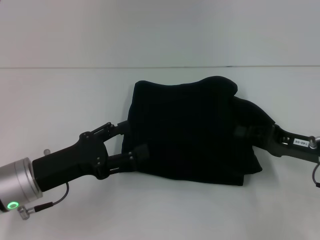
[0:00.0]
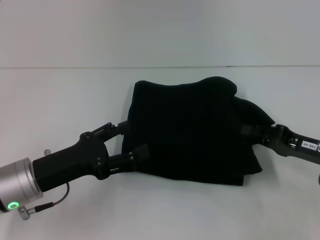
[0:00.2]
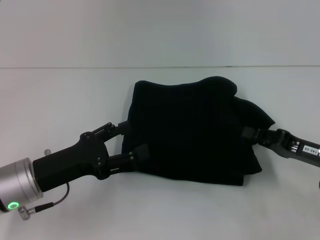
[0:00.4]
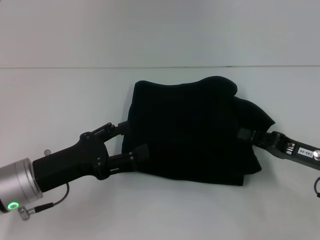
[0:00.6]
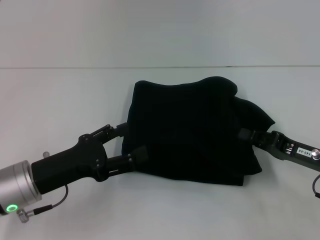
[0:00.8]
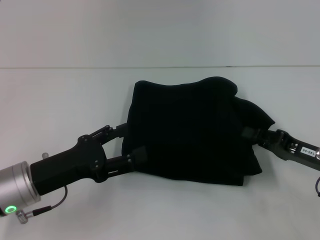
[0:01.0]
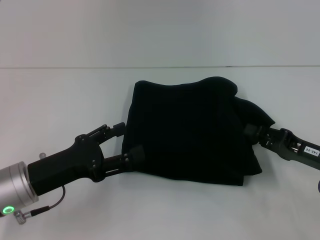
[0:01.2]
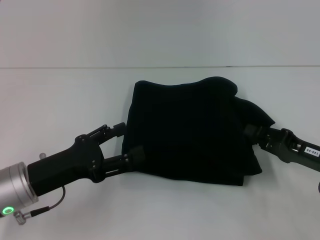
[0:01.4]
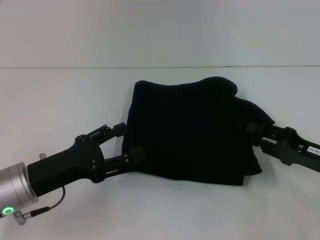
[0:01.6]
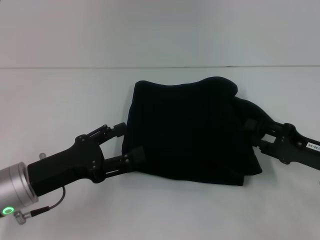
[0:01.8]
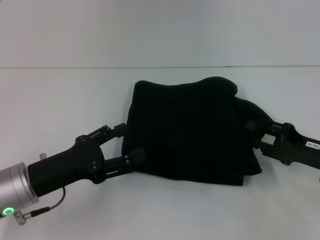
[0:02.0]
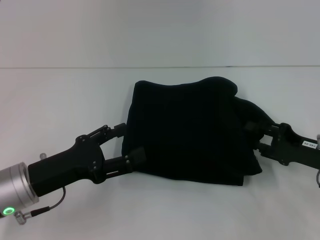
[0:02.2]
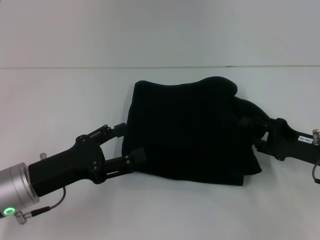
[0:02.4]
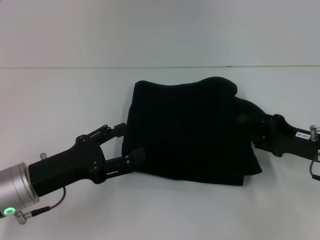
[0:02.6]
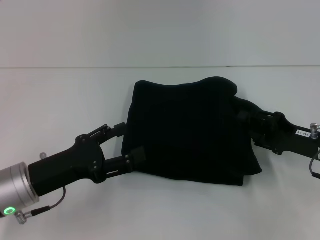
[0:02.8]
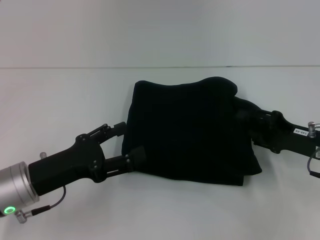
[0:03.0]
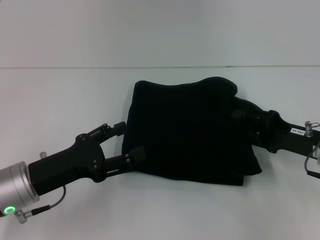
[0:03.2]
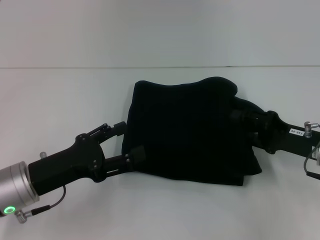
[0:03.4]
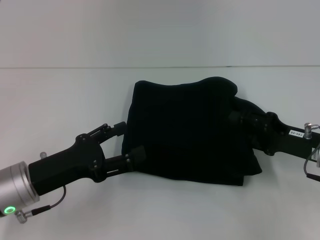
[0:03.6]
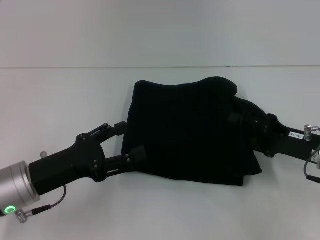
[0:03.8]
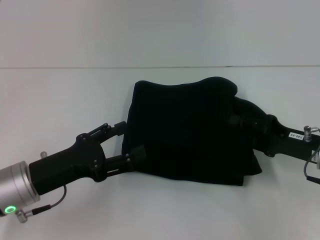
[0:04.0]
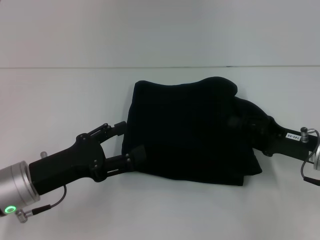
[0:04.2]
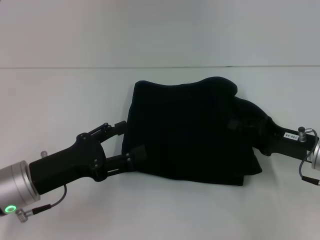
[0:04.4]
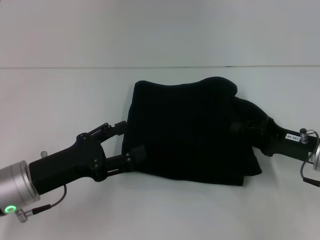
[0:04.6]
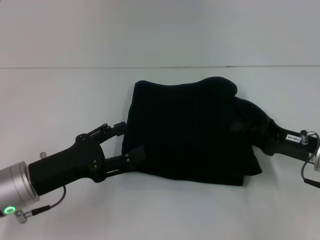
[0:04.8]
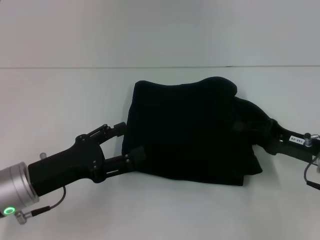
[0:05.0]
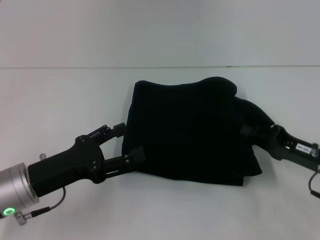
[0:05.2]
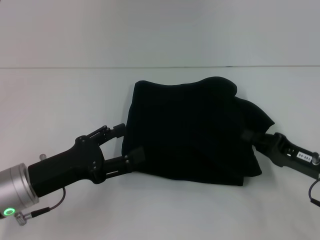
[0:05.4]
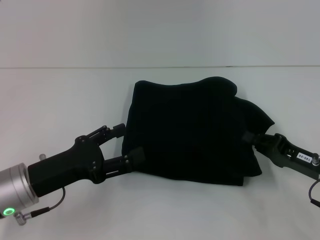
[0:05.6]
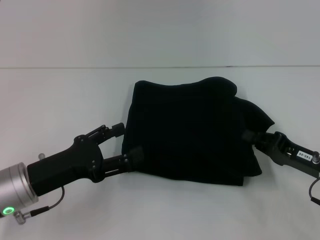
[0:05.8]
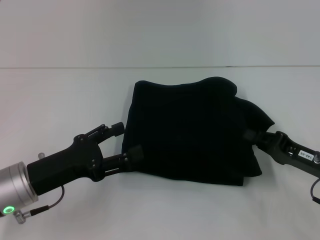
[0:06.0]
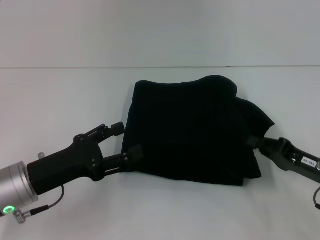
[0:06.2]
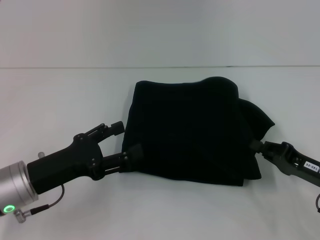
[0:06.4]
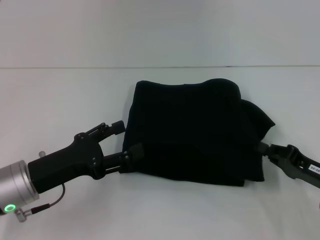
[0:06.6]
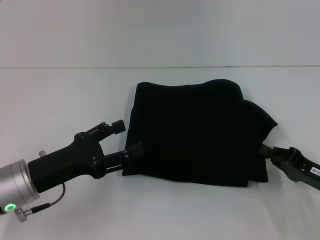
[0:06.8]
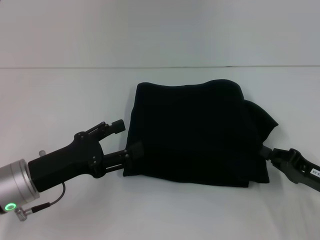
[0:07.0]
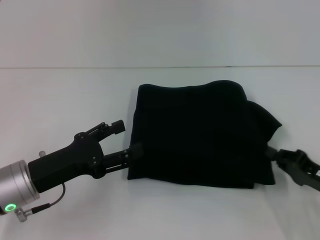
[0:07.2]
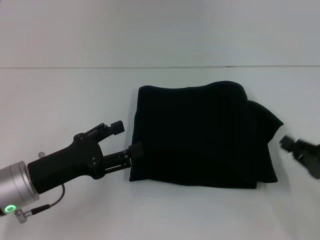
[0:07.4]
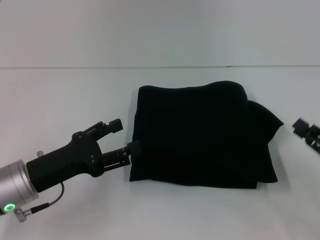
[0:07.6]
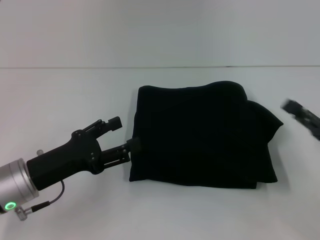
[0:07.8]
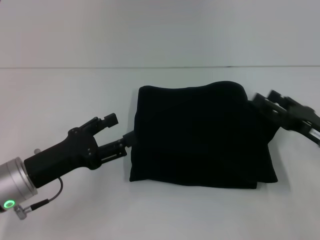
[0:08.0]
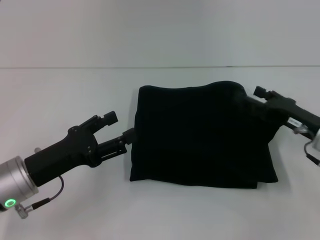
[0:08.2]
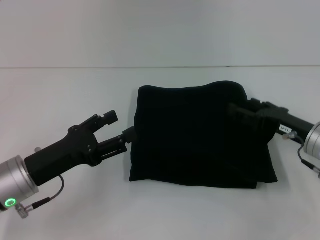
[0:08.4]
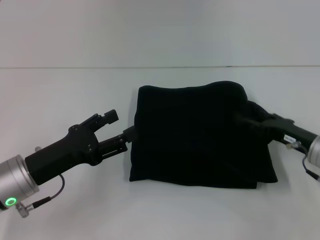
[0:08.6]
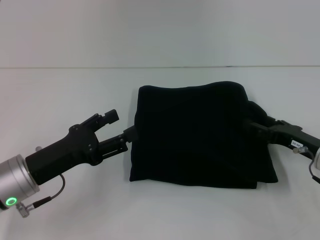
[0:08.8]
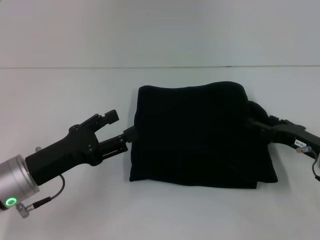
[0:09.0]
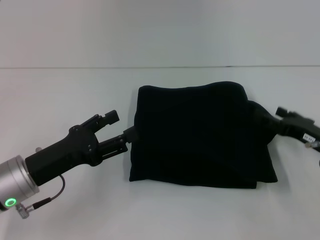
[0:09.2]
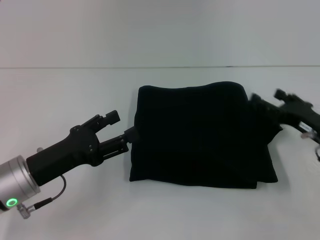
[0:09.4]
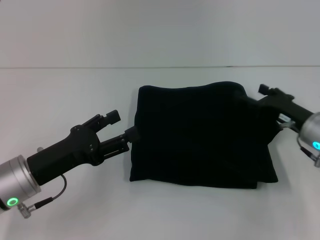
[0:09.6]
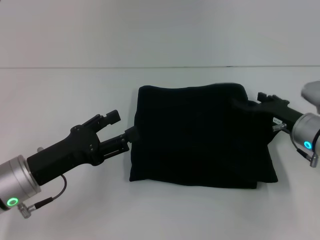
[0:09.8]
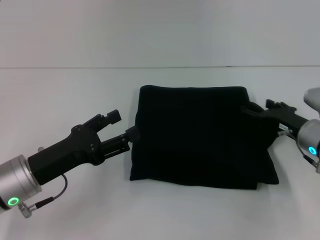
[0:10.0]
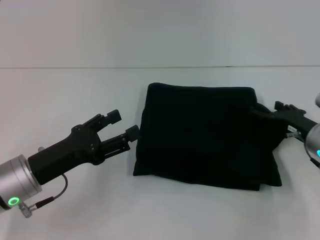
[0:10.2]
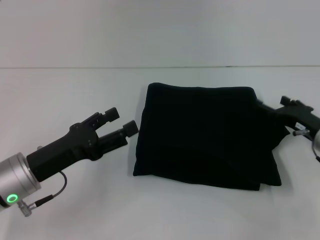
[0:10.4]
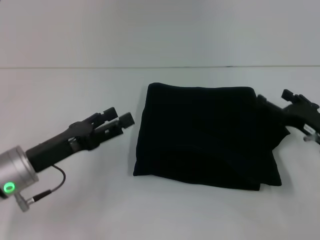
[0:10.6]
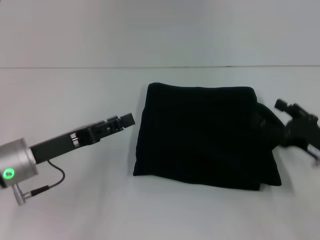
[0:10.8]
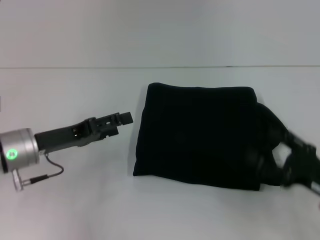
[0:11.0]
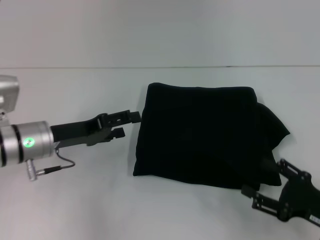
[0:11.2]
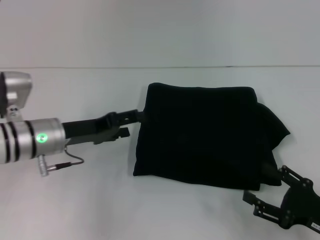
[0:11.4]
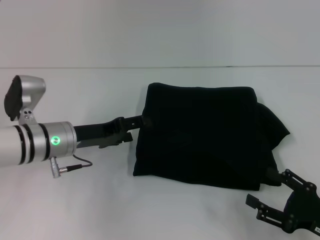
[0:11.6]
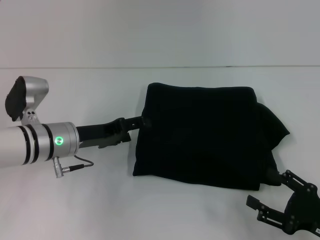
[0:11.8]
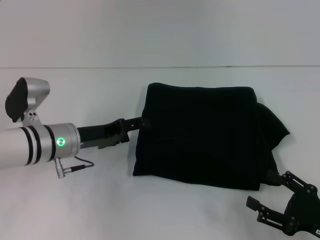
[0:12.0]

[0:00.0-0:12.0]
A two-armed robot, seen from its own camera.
0.0 to 4.4 s: The grippers make only small movements.
4.4 to 6.0 s: The right gripper closes.
6.0 to 7.6 s: The right gripper shifts by about 5 cm.
7.6 to 9.0 s: The right gripper shifts roughly 10 cm forward, and opens up.
9.0 to 10.4 s: The grippers make only small movements.
10.4 to 12.0 s: The left gripper heads forward, covering approximately 10 cm. Meanwhile the right gripper goes some 15 cm backward.

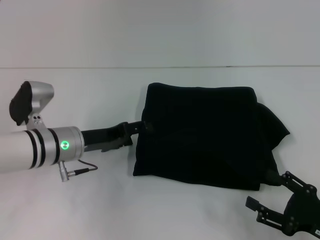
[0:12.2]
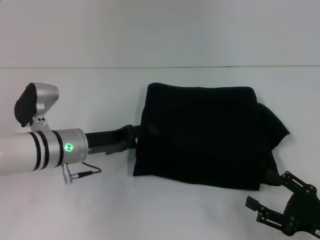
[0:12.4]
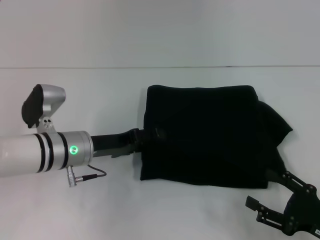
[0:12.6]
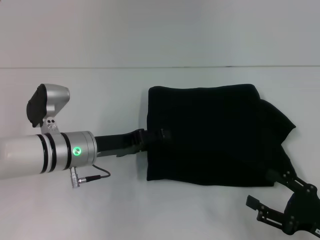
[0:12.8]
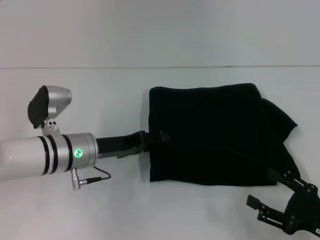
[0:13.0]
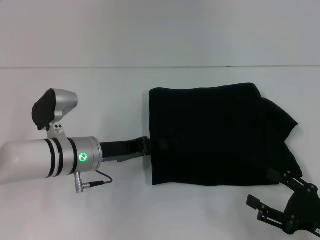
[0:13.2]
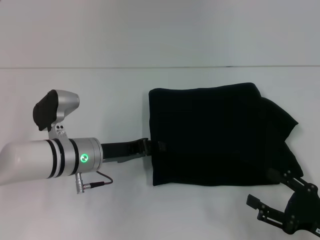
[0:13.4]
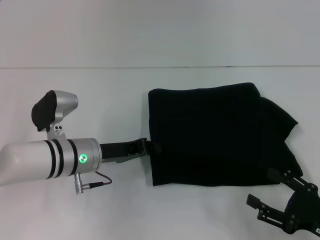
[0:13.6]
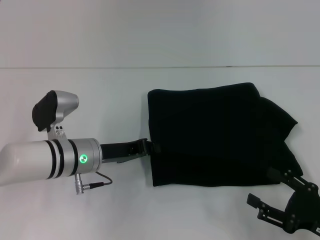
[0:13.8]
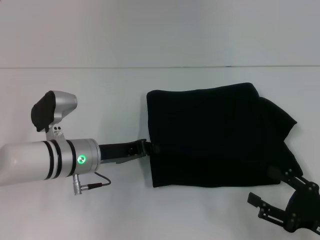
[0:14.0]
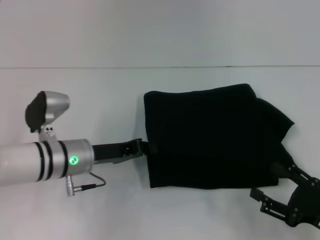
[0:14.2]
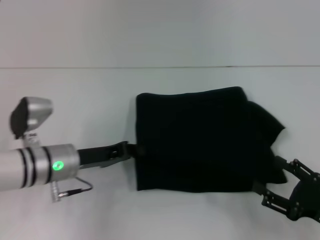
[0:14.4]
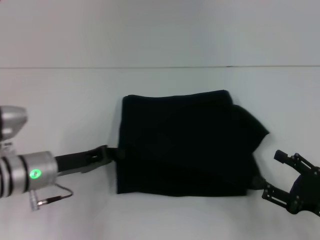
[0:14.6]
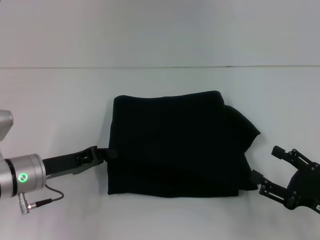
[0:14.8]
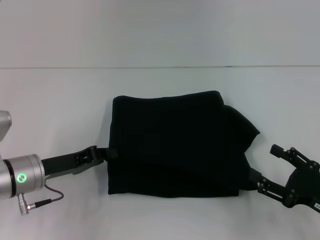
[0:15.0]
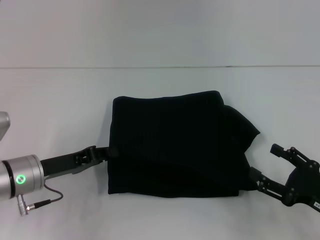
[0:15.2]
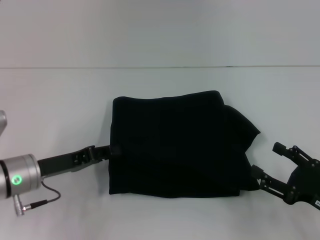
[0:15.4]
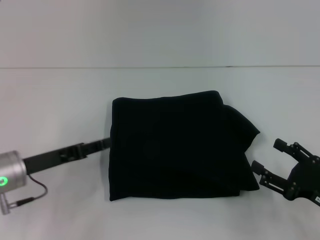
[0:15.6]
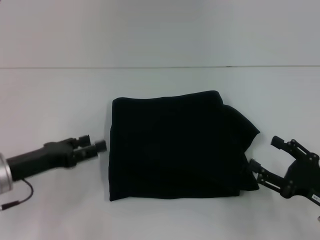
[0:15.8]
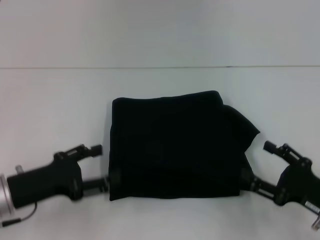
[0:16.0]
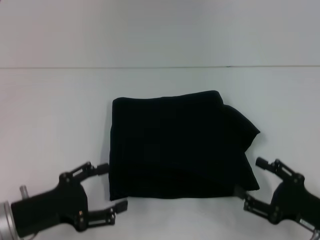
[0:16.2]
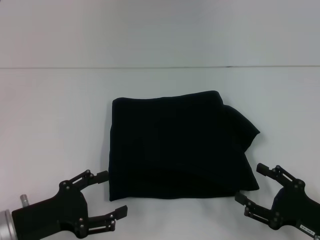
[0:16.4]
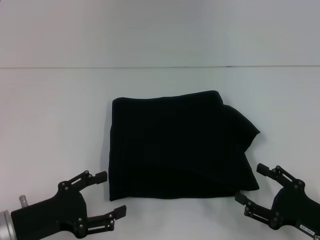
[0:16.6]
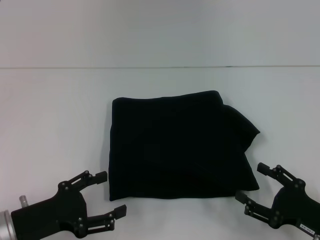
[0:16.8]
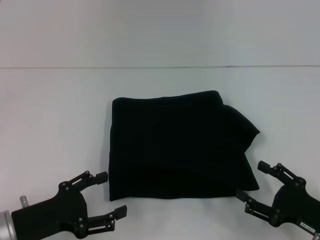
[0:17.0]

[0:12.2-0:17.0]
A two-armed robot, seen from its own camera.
12.2 to 13.8 s: The left gripper closes its fingers.
13.8 to 15.4 s: The left gripper is displaced to the left by roughly 10 cm.
15.4 to 17.0 s: The left gripper travels backward by some 10 cm, and opens its fingers.

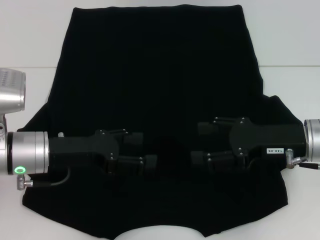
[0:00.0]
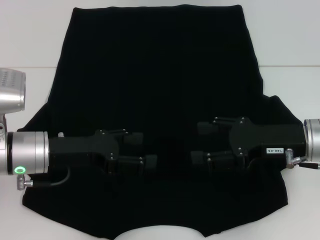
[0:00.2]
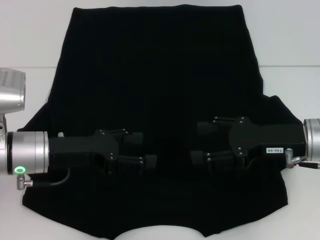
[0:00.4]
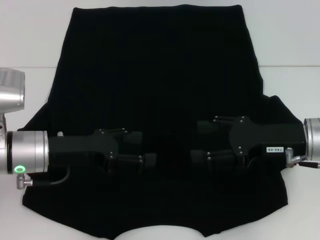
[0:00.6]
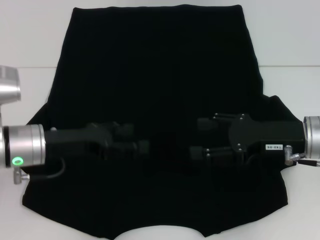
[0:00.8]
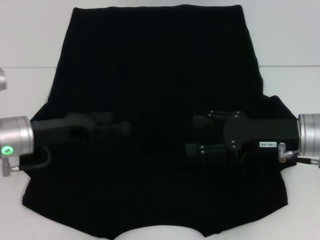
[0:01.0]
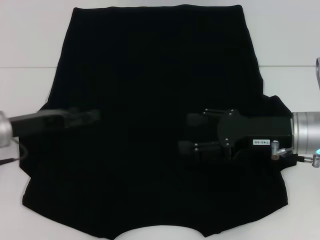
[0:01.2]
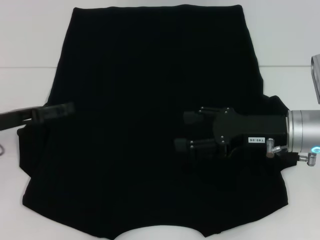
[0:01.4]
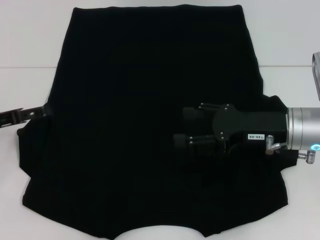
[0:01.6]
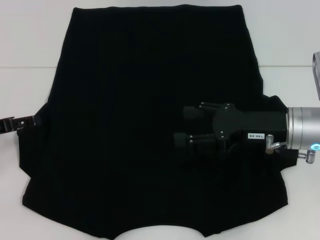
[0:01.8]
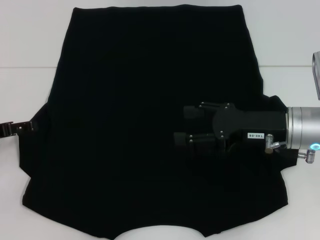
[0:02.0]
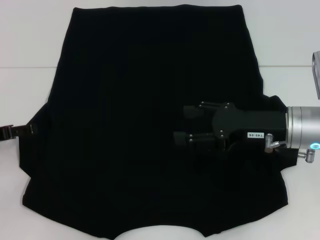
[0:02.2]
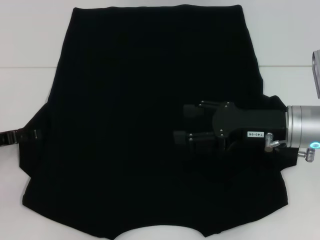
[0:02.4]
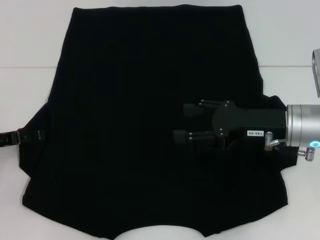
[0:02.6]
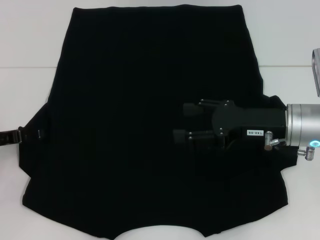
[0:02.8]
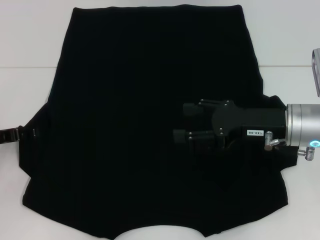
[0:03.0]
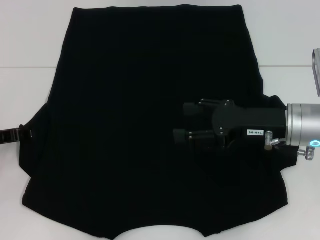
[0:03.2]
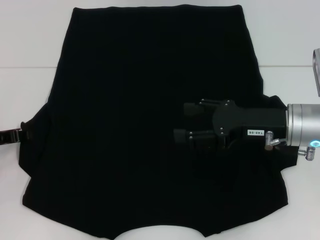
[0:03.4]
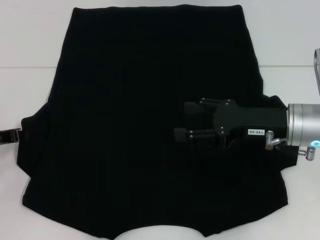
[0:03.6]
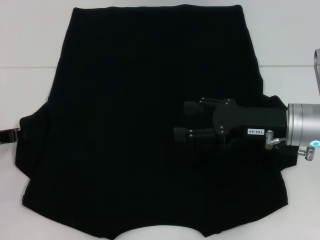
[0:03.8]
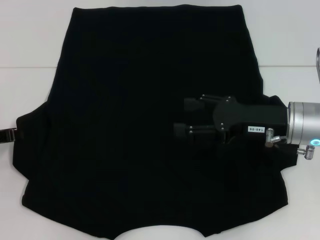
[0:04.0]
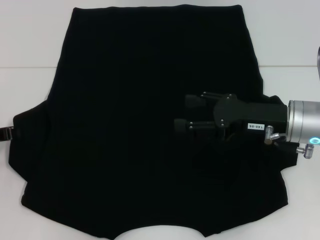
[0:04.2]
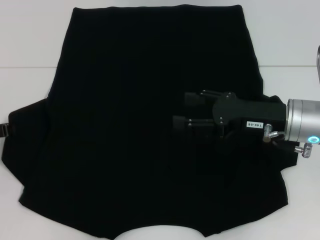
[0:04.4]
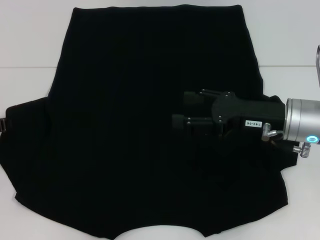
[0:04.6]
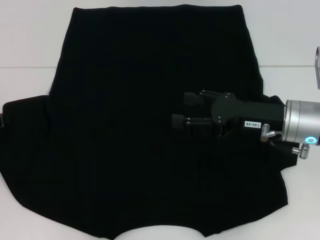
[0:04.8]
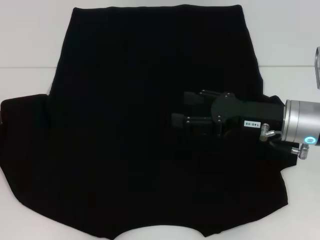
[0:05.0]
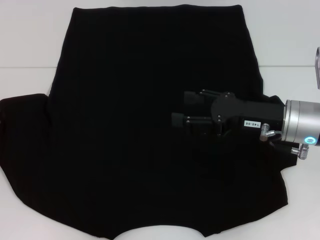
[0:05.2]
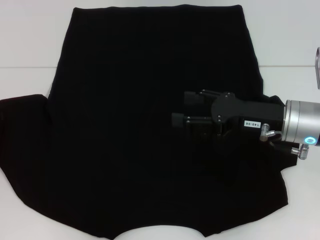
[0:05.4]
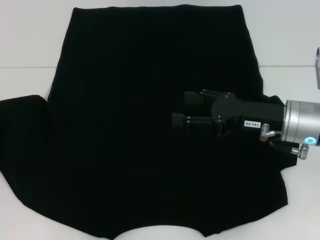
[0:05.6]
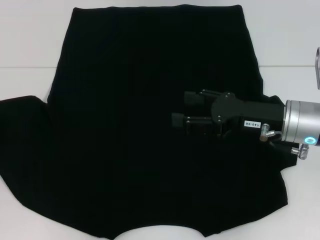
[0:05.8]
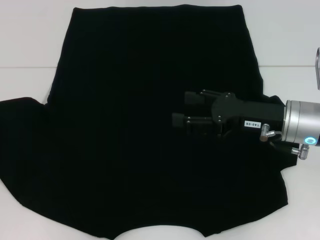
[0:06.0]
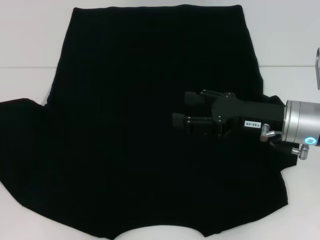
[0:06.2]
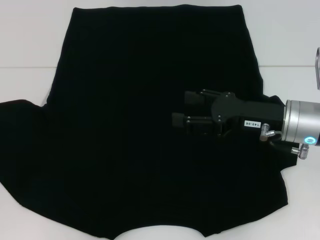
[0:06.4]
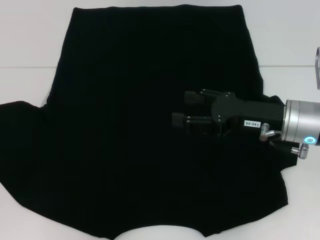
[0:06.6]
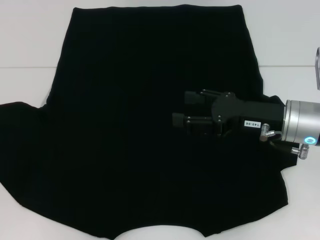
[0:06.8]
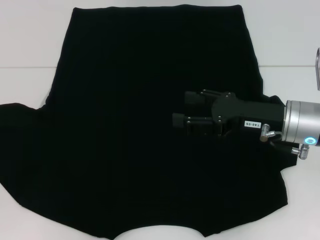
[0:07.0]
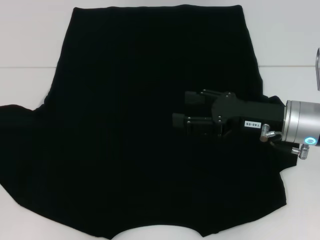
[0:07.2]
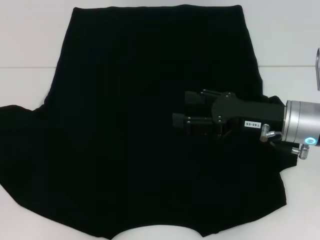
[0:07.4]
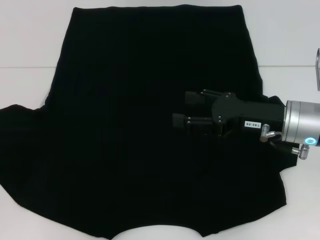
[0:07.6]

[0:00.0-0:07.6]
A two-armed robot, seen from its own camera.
0.0 to 1.6 s: The left gripper goes some 10 cm to the left.
1.6 to 3.0 s: The grippers move only a little.
3.0 to 4.6 s: The left gripper closes up.
4.6 to 7.6 s: There are only small adjustments of the grippers.
